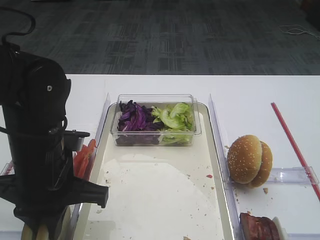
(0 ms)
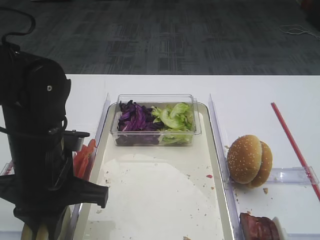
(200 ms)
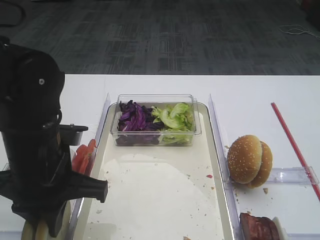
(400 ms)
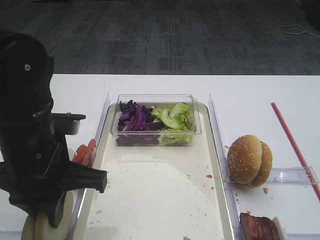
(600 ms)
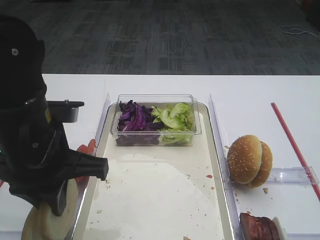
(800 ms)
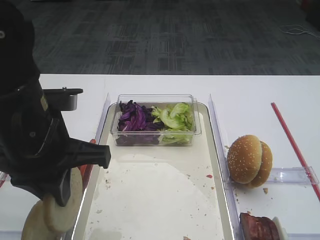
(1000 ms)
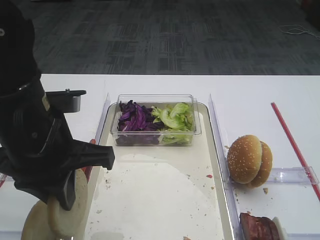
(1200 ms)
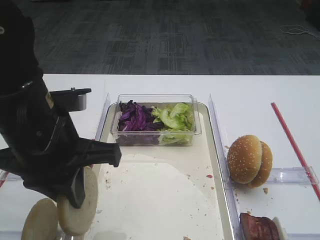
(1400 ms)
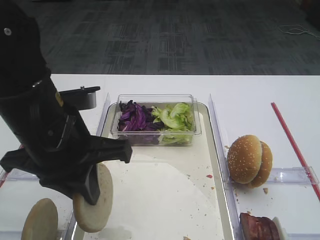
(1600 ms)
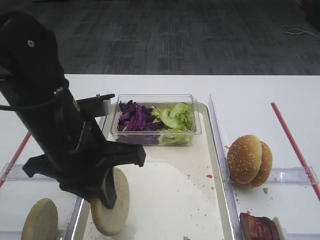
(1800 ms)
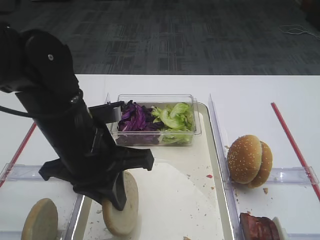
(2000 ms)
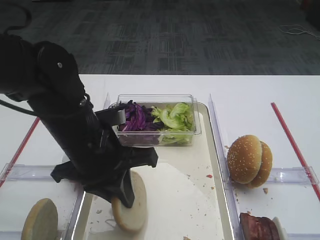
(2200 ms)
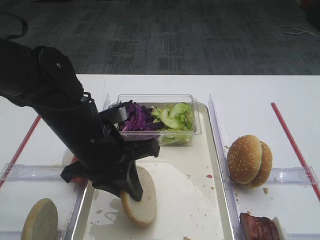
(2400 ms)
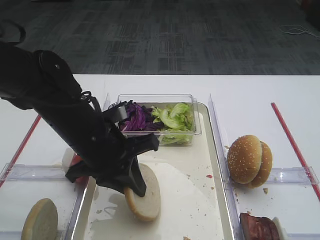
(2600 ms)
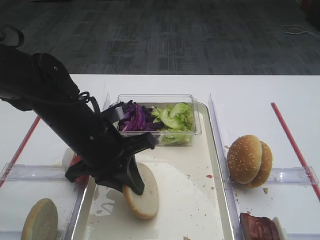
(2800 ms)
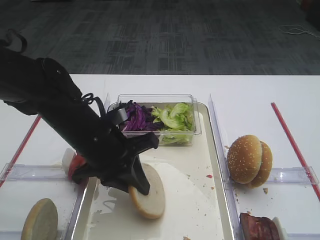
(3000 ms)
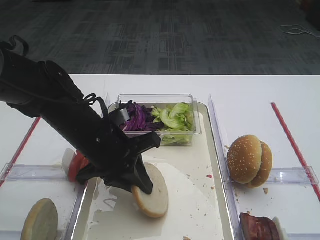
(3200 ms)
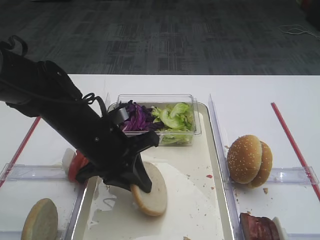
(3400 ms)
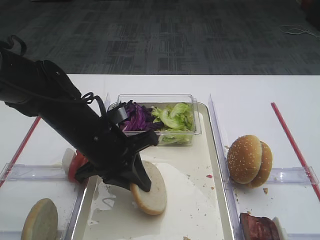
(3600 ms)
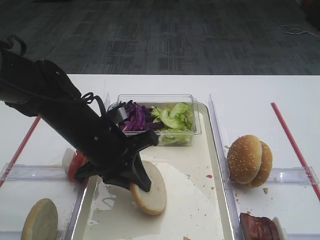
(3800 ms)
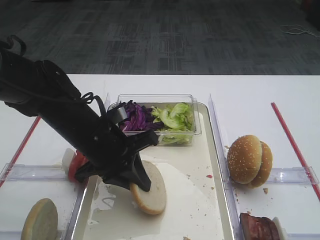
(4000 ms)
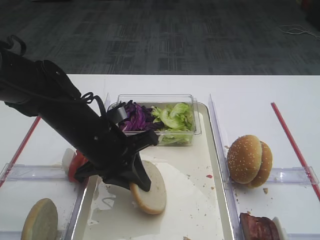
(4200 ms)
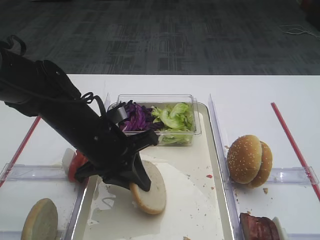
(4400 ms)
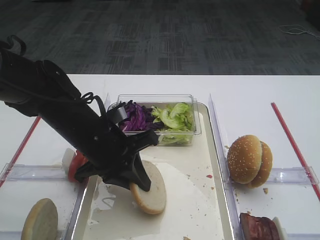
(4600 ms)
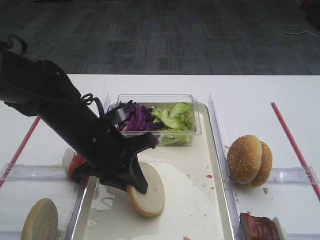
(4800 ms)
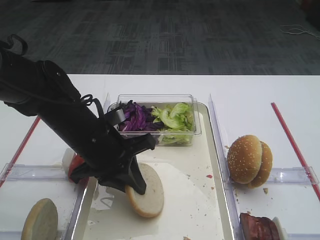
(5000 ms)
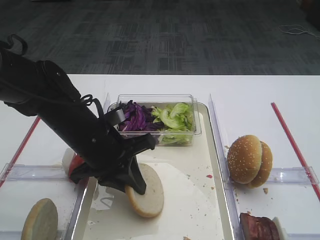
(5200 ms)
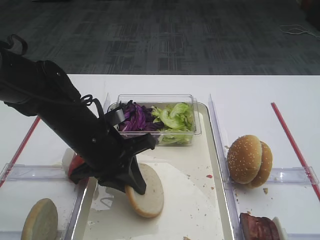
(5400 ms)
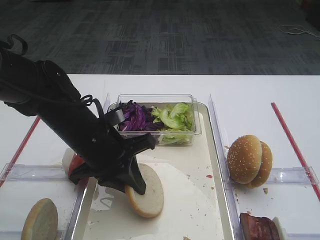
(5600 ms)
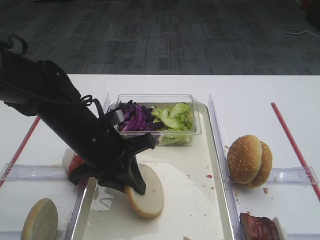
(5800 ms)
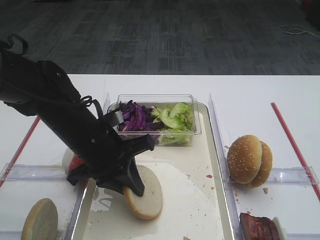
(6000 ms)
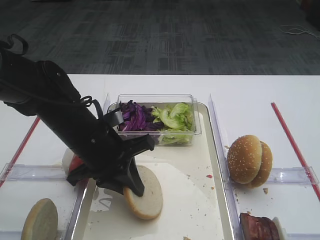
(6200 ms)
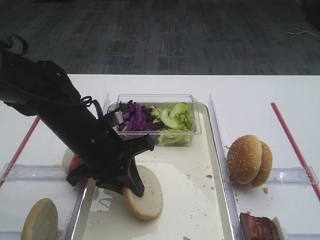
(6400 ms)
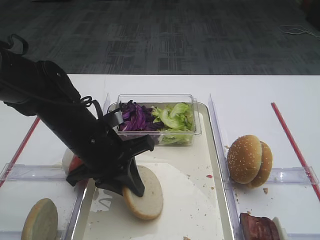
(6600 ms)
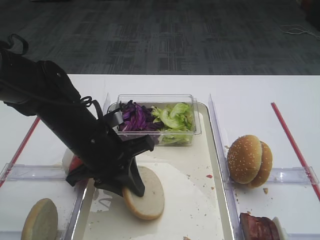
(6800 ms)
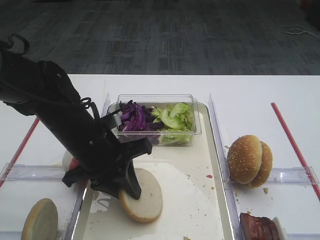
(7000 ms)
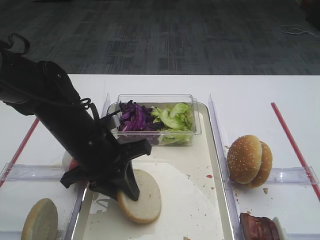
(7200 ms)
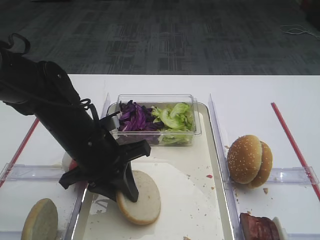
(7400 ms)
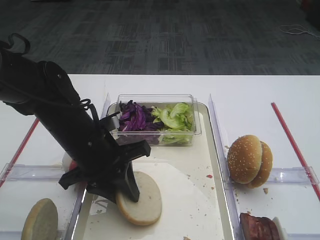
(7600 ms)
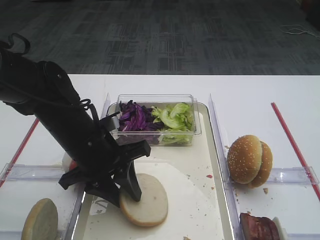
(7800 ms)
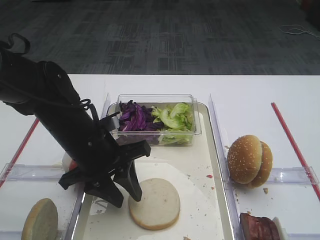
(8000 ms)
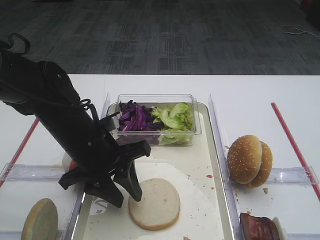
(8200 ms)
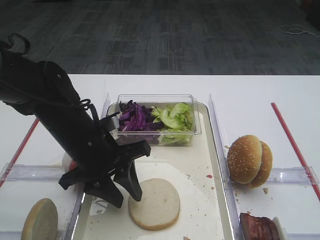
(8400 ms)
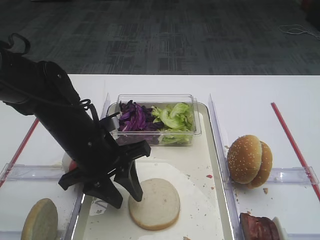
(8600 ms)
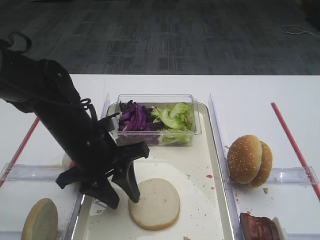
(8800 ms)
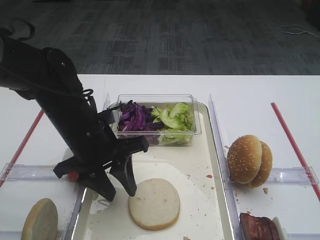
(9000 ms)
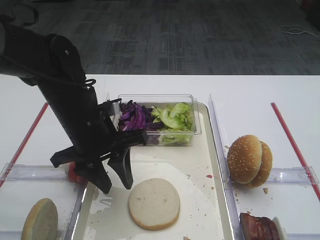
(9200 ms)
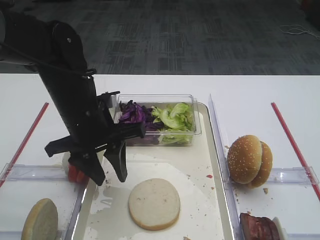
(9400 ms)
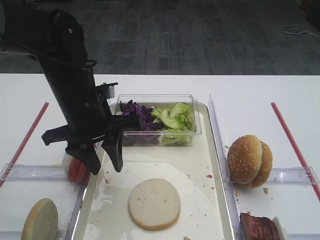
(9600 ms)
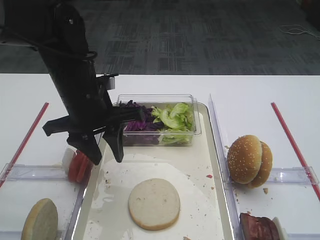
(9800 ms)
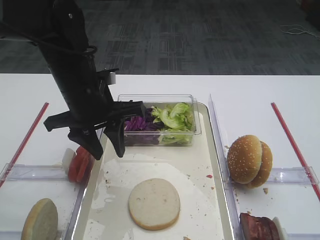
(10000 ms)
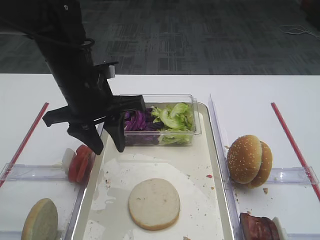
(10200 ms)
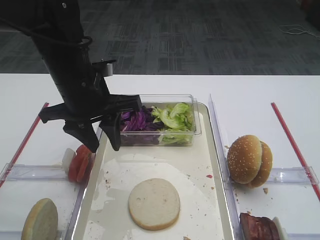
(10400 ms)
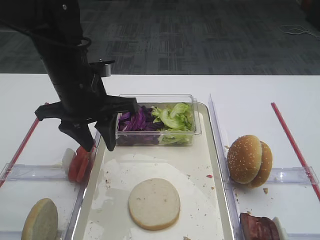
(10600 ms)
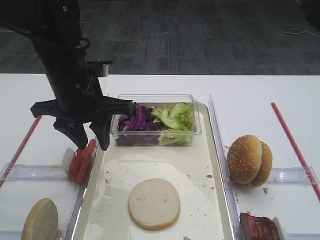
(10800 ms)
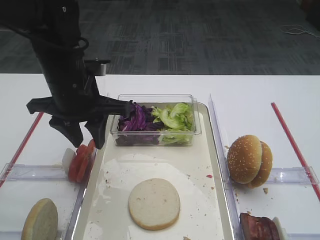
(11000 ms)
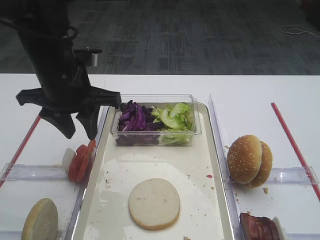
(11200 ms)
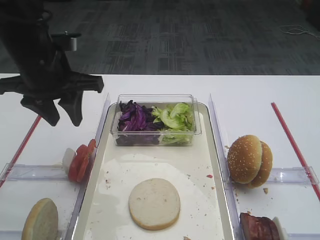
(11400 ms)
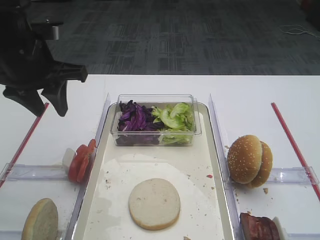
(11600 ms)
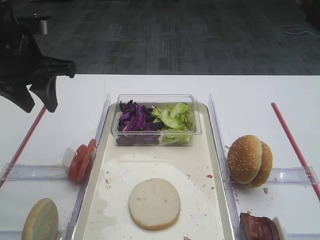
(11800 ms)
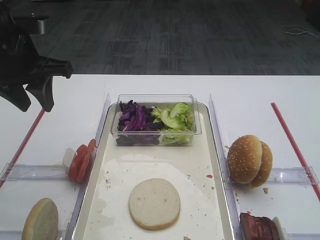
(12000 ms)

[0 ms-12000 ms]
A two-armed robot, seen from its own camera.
Step, 1200 ms to 9400 ms: Place the bread slice on the tray with the left gripper.
0 ms to 1600 ms: The left gripper goes some 5 cm upward.
1600 ms to 3000 ms: The left gripper moves downward and forward, roughly 10 cm.
3000 ms to 6000 ms: The two grippers keep their place.
6000 ms to 7600 ms: Both grippers stay about where they are.
7600 ms to 9000 ms: The grippers move only a little.
9000 ms to 10400 ms: The left gripper is displaced upward by approximately 5 cm.
10400 ms to 12000 ms: The left gripper travels to the left and upward by roughly 10 cm.

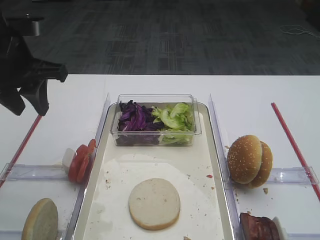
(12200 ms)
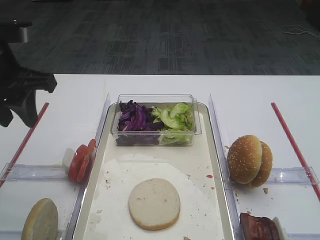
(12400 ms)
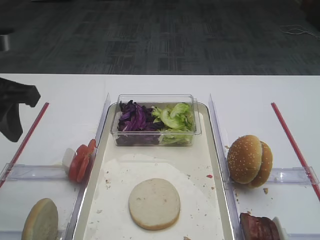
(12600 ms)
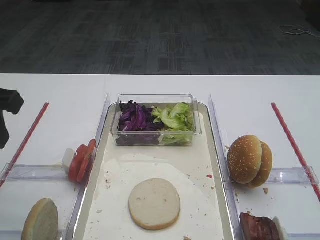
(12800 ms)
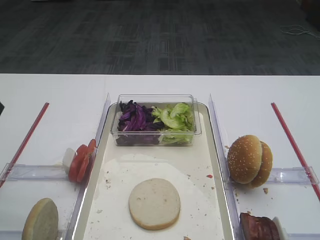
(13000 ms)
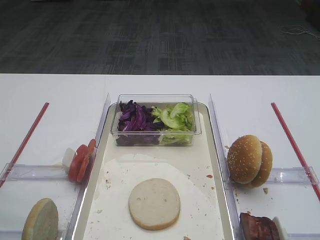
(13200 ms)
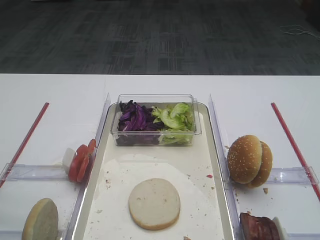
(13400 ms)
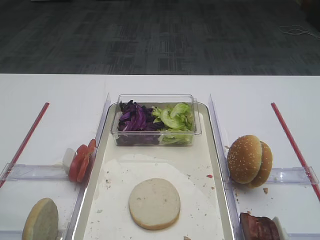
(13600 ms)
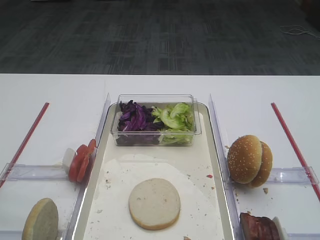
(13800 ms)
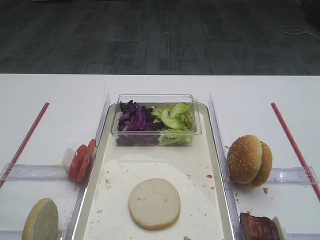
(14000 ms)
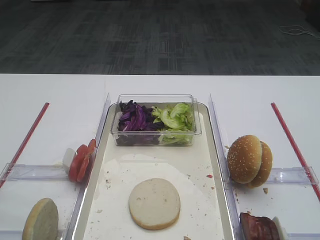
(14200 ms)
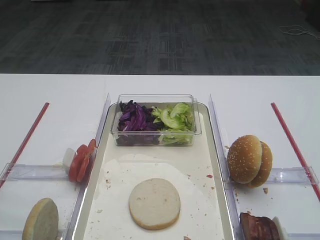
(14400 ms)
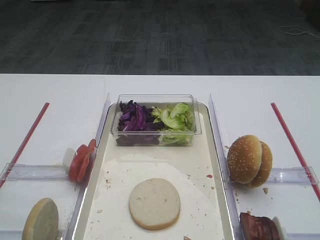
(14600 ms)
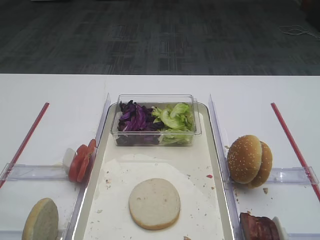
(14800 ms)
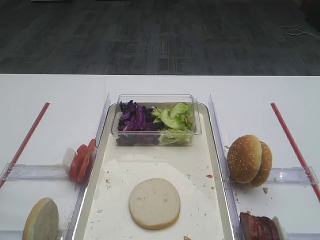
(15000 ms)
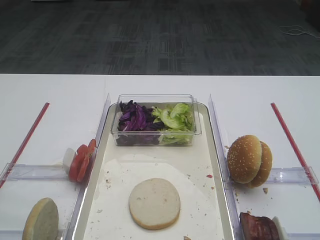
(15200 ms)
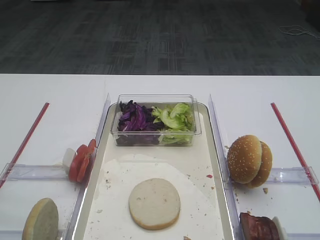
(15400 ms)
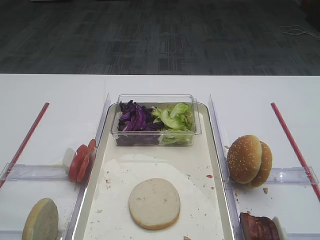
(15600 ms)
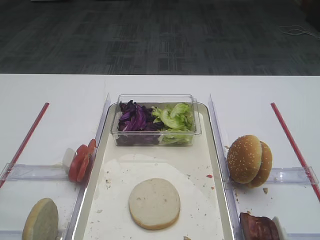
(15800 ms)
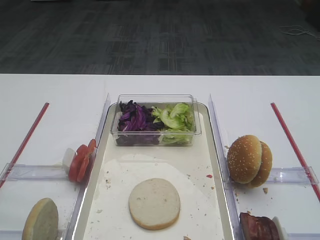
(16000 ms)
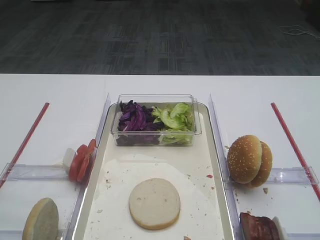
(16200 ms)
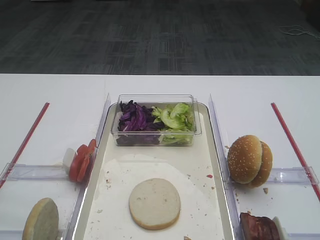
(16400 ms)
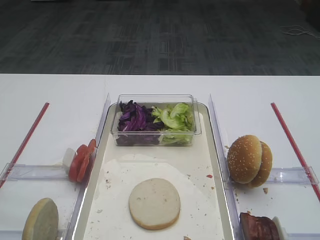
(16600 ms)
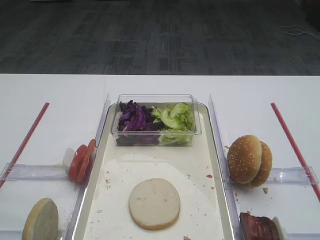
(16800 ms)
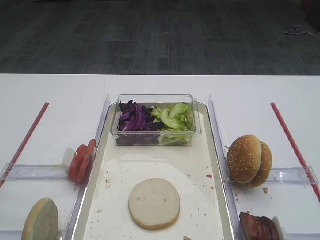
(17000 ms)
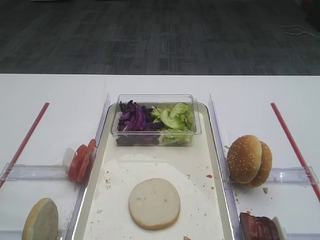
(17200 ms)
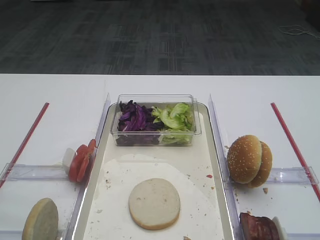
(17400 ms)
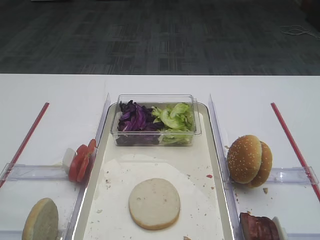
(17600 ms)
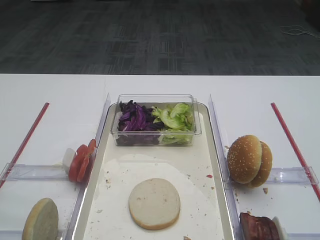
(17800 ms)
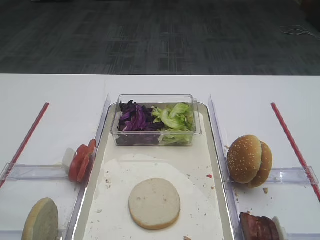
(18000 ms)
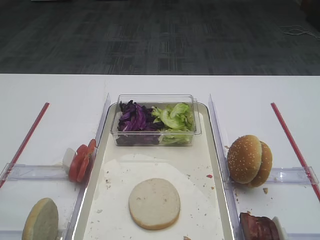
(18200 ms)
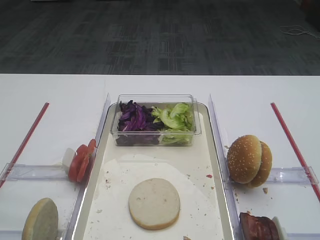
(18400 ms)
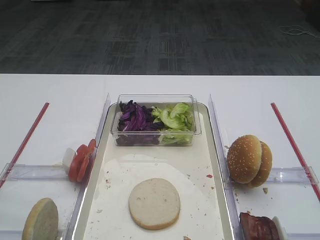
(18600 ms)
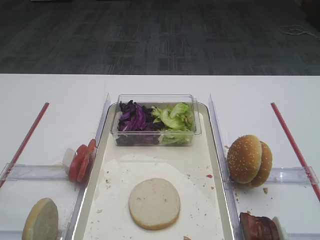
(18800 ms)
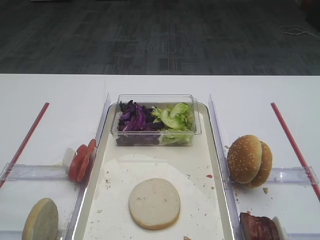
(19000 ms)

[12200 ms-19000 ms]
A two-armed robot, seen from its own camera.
12200 ms to 13600 ms: The left gripper moves backward, roughly 20 cm.
17600 ms to 19000 ms: The two grippers keep their place.

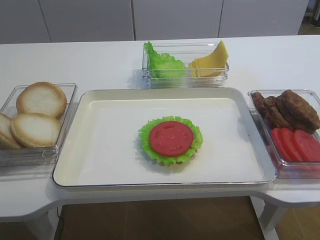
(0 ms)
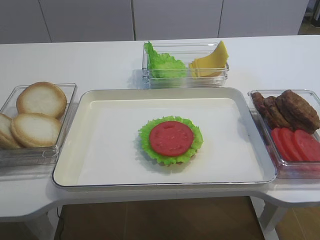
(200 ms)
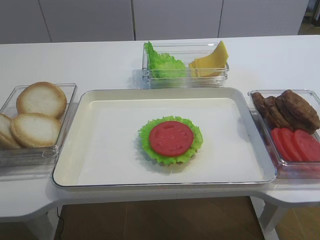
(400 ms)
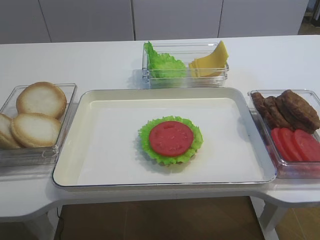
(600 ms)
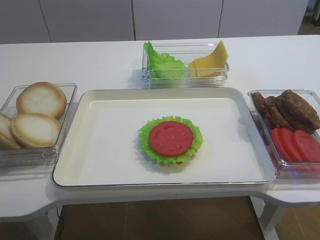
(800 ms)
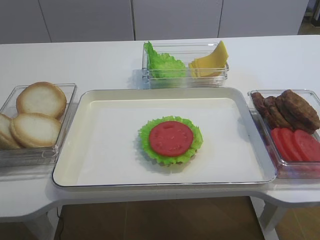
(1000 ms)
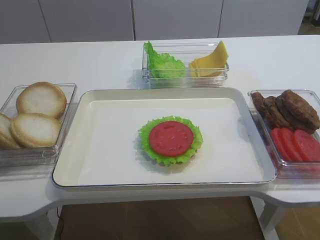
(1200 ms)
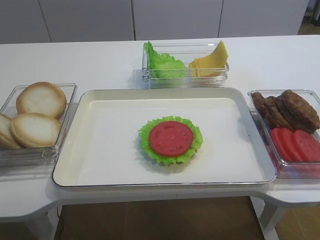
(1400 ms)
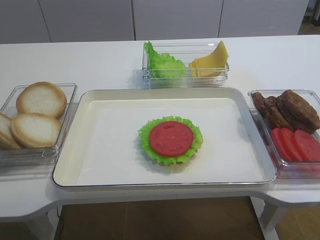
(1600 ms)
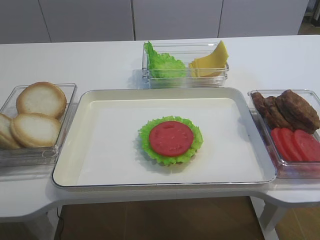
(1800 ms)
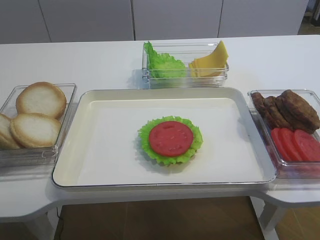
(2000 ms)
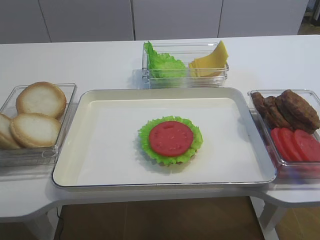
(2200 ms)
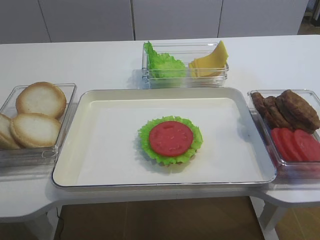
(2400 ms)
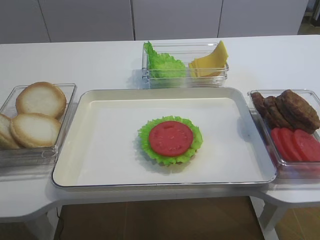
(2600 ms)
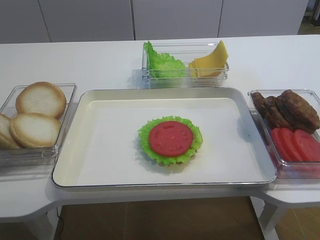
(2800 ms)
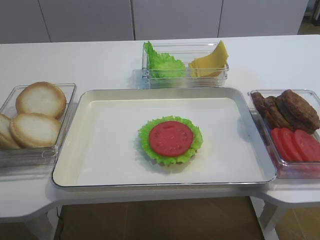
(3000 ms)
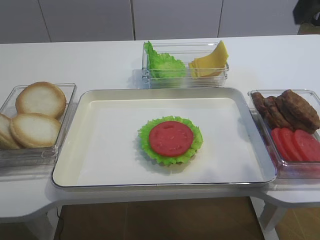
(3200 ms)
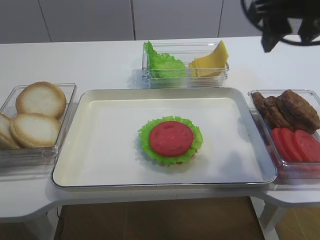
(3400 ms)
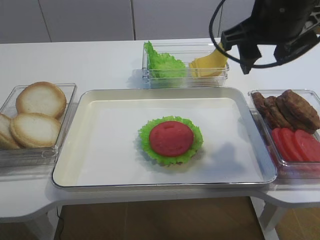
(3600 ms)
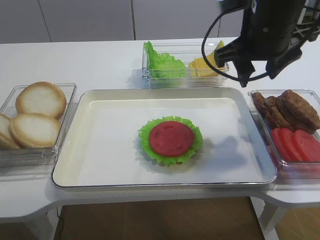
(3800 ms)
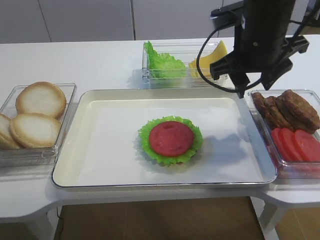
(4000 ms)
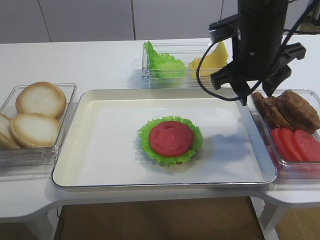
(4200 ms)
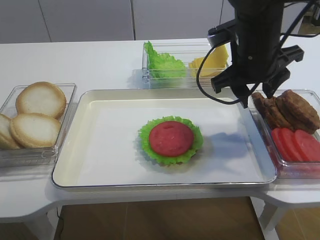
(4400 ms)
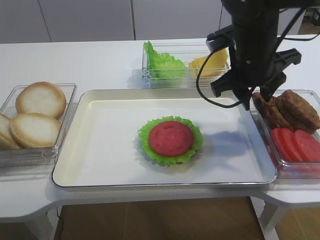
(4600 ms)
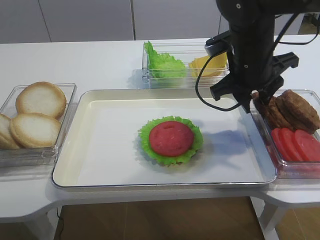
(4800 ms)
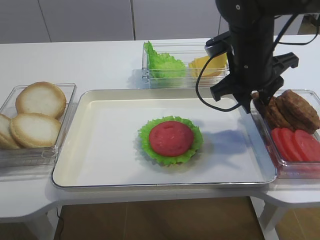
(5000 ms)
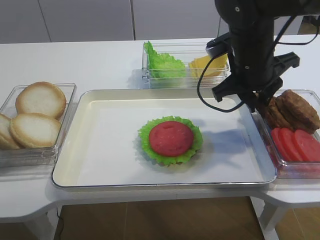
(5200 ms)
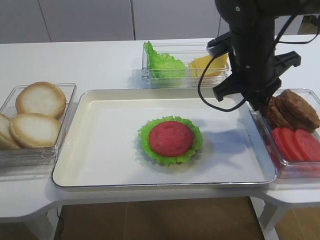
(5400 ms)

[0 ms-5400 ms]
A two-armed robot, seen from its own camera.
1400 ms to 2800 ms: The right gripper is displaced forward and upward by roughly 20 cm.
2800 ms to 4000 ms: The right gripper is displaced forward, to the left and downward by roughly 25 cm.
4000 ms to 5400 ms: The right gripper closes its fingers.
